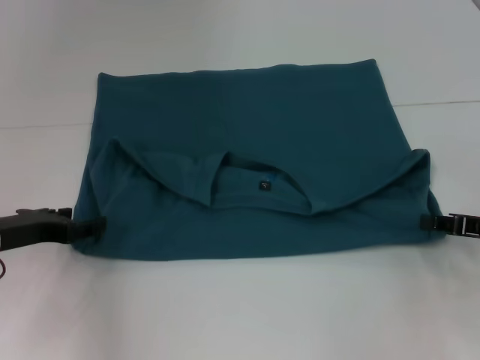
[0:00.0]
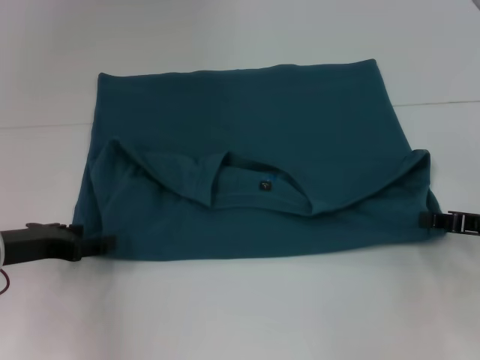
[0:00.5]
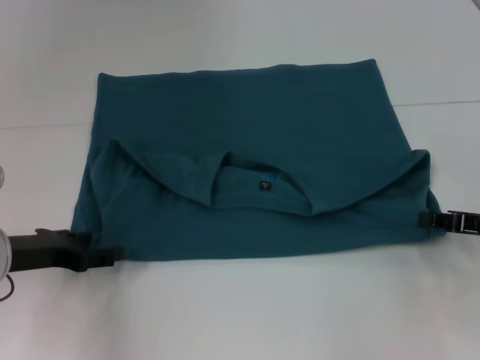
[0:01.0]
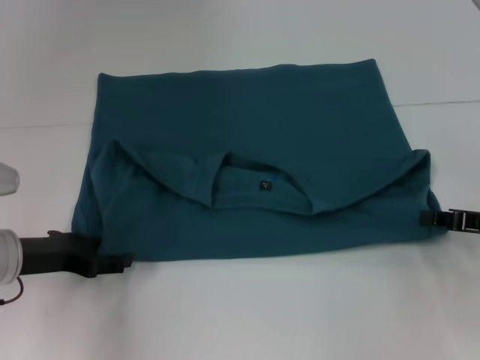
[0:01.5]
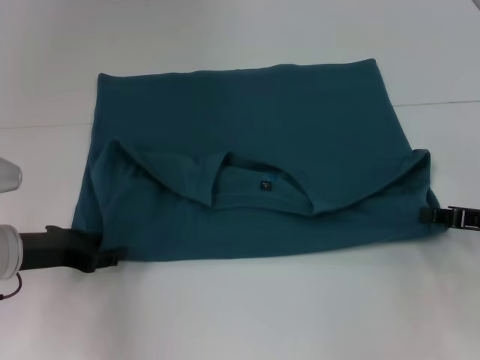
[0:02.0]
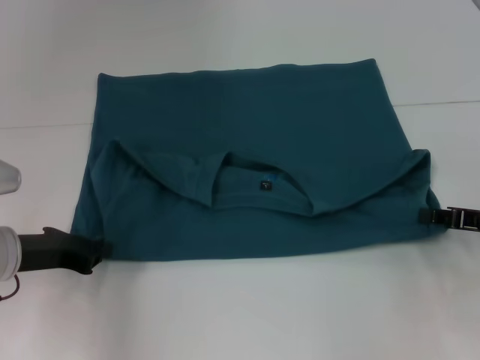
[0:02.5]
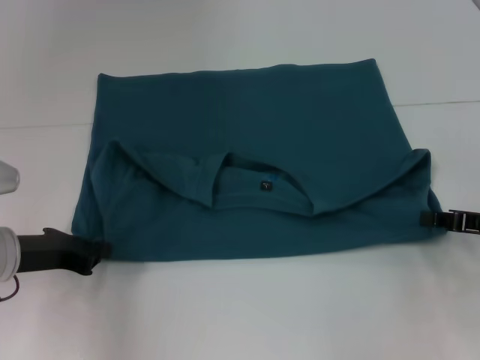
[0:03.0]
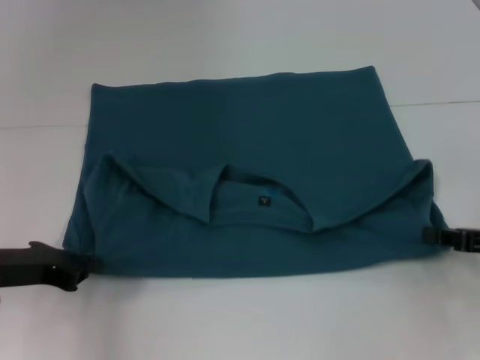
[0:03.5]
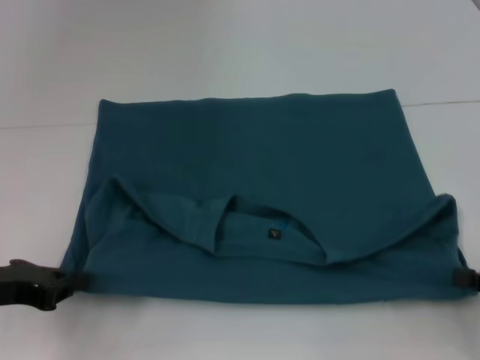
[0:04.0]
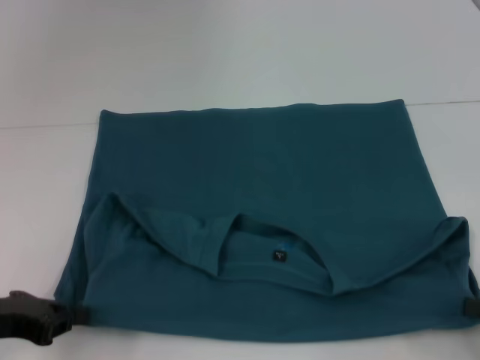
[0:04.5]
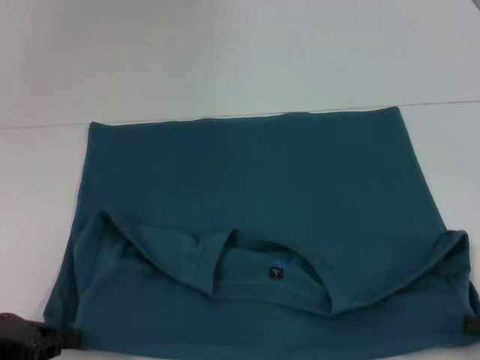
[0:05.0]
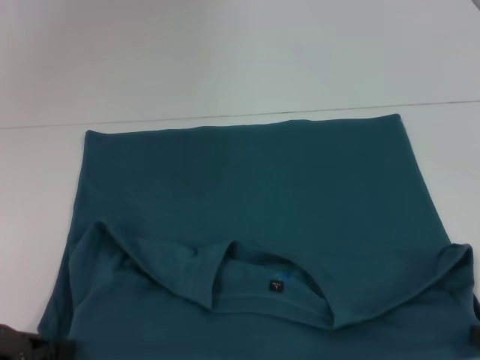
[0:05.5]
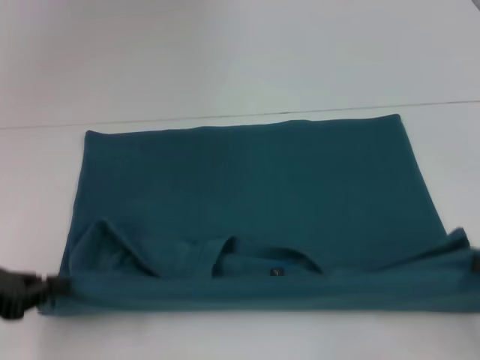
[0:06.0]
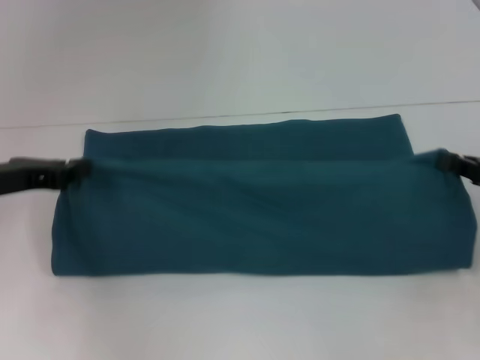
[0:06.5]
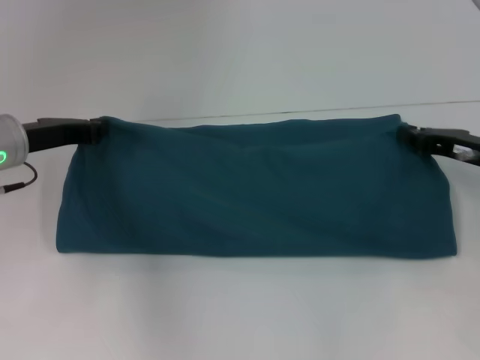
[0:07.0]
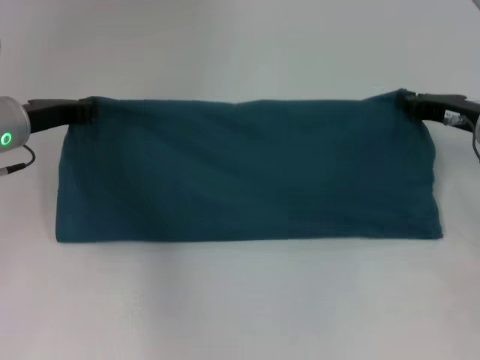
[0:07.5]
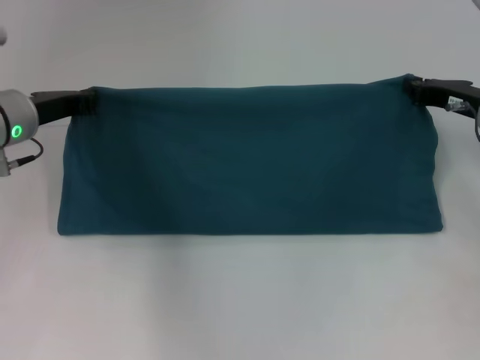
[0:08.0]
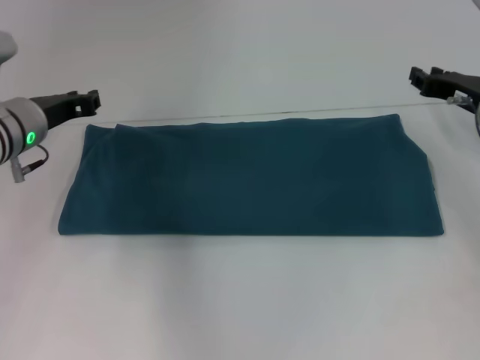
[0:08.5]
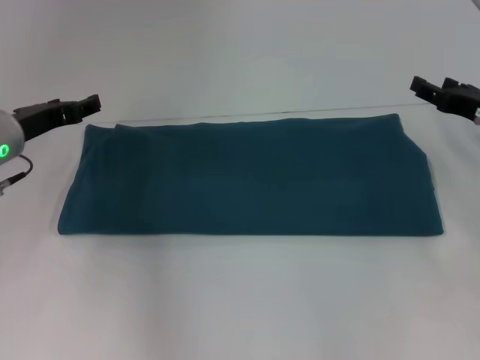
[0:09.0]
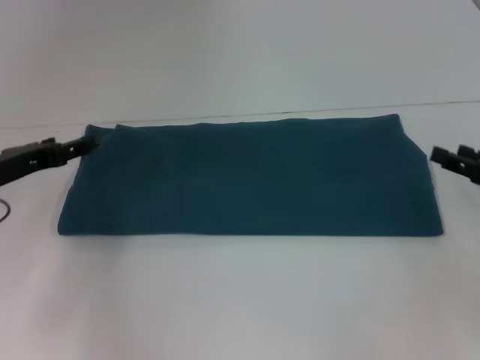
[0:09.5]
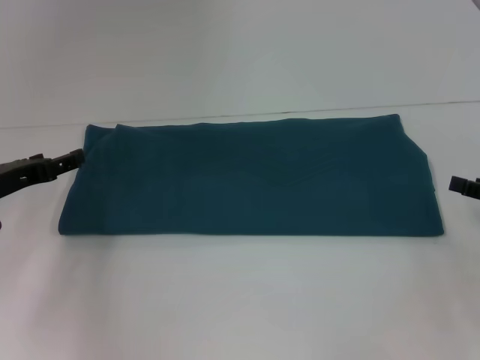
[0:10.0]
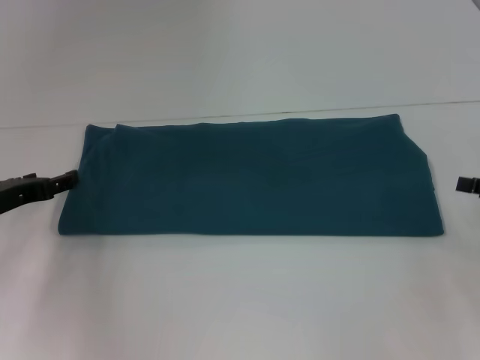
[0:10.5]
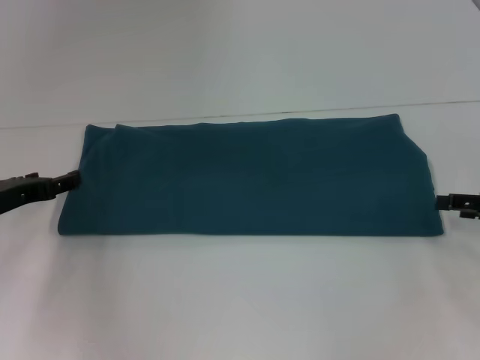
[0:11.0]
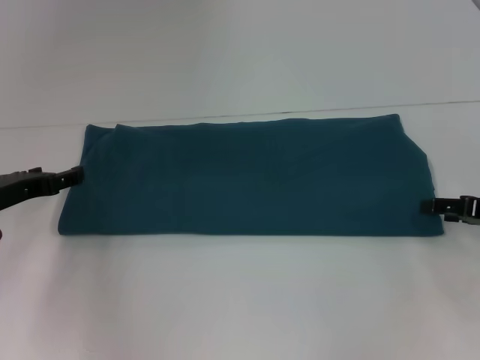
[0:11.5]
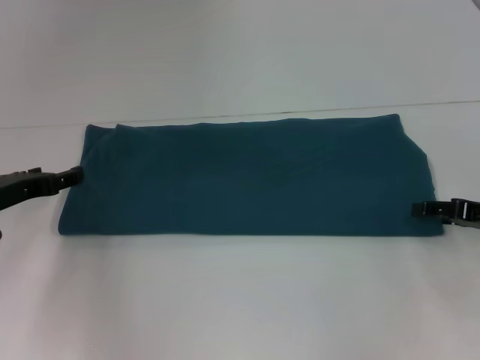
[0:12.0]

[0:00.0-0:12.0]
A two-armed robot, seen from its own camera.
Step, 0:01.0 to 0:08.5: Fold the clothes to the left.
Step, 0:01.0 to 0:08.5: Fold the clothes to the right.
0:00.0 to 0:02.0: The grippers make only small movements.
0:02.0 to 0:04.0: The left gripper changes place by approximately 5 cm, and closes its fingers. The right gripper moves backward, about 10 cm.
0:06.0 to 0:08.0: The right gripper heads forward, covering some 20 cm; the left gripper shifts about 20 cm forward and to the right.
0:08.0 to 0:10.0: The right gripper moves backward and to the right, some 15 cm, and opens; the left gripper travels backward and to the left by about 10 cm, and opens up.
0:10.0 to 0:12.0: The right gripper ends up about 5 cm from where it was.

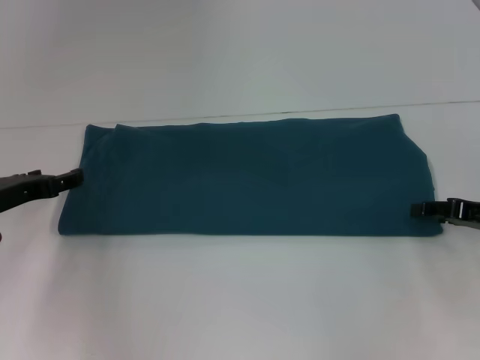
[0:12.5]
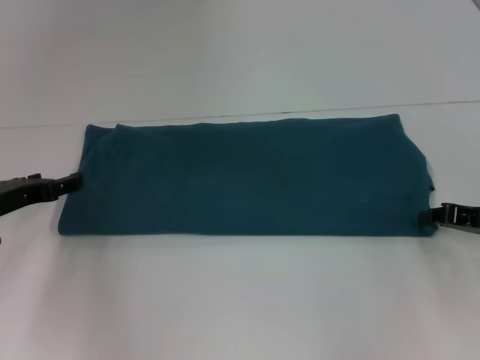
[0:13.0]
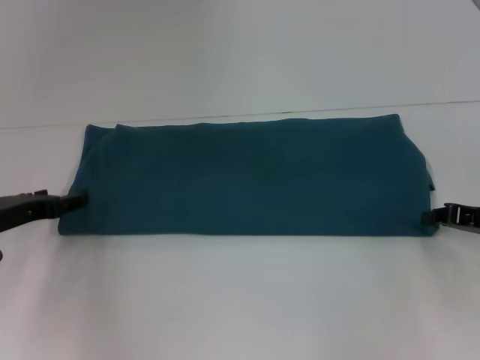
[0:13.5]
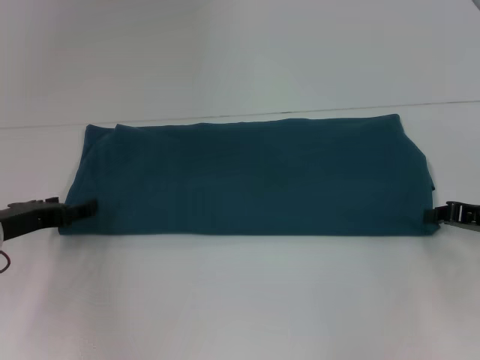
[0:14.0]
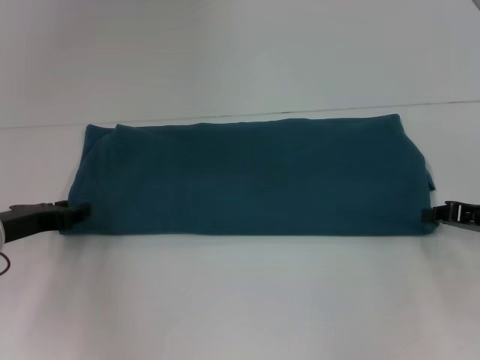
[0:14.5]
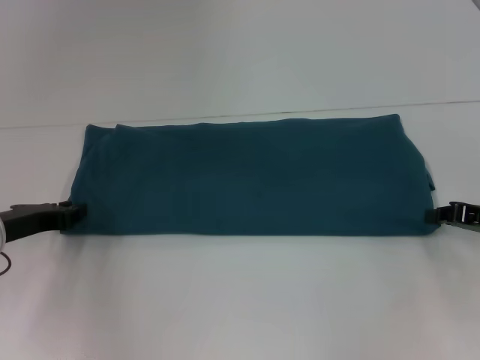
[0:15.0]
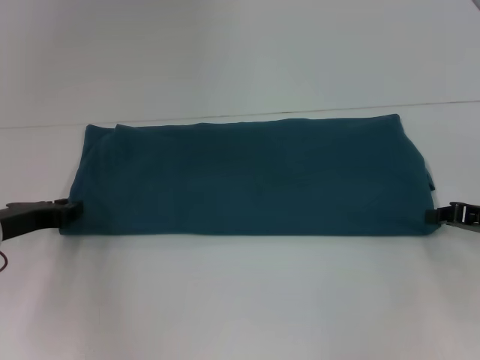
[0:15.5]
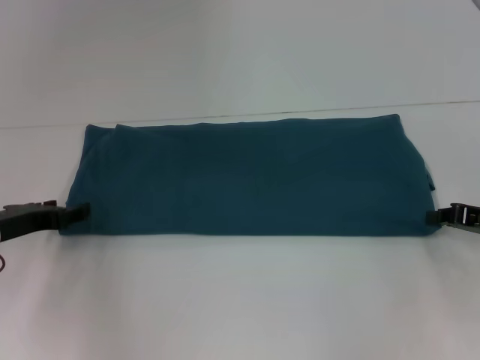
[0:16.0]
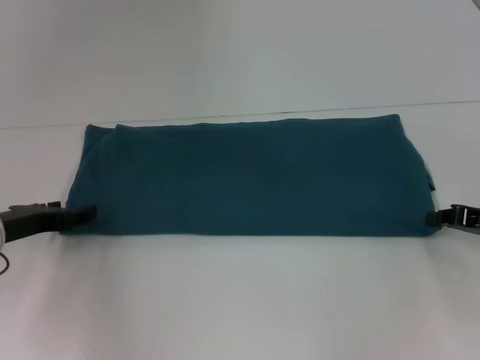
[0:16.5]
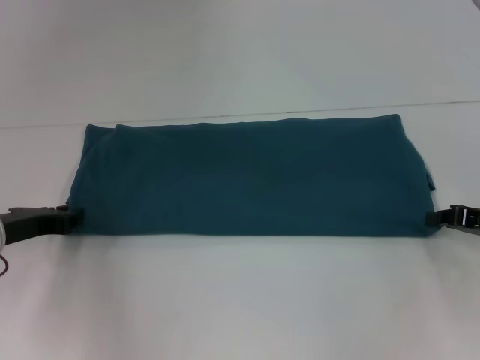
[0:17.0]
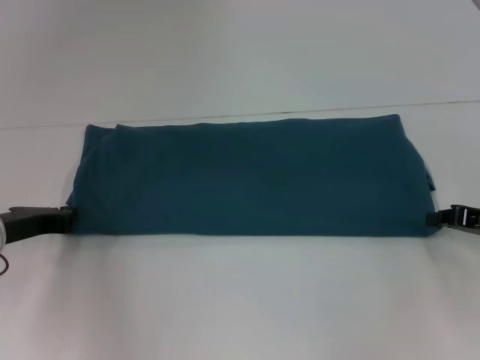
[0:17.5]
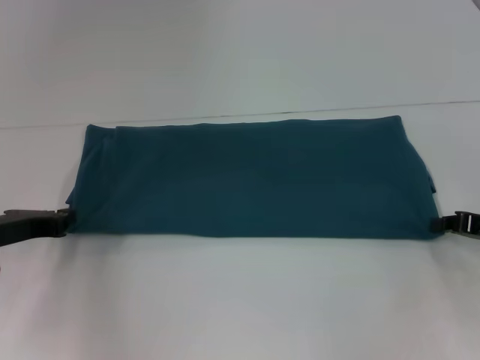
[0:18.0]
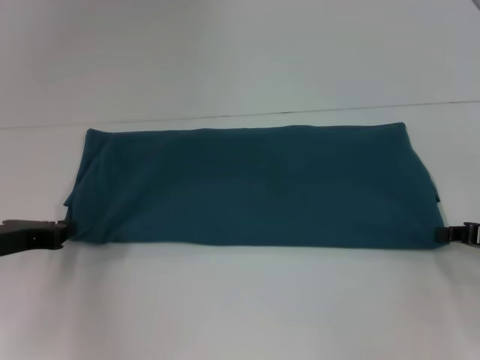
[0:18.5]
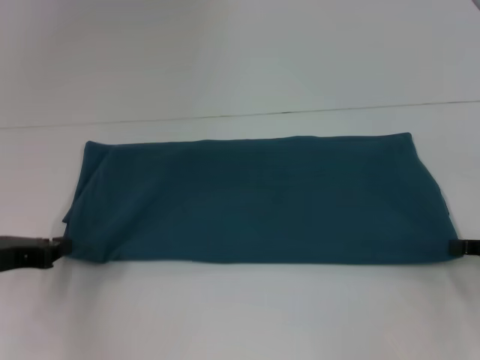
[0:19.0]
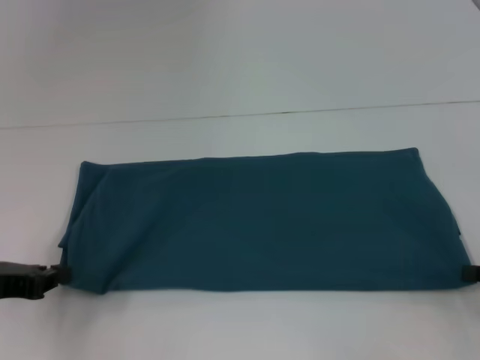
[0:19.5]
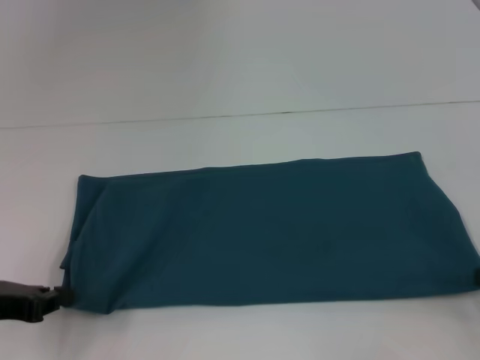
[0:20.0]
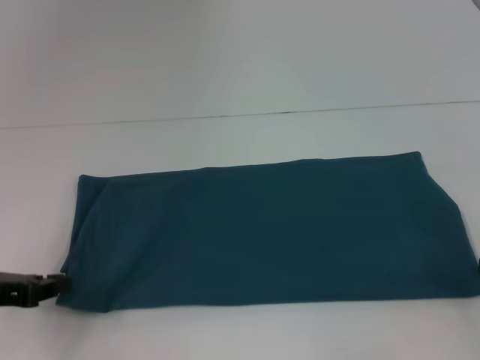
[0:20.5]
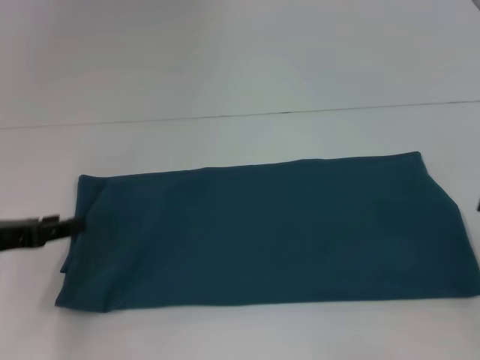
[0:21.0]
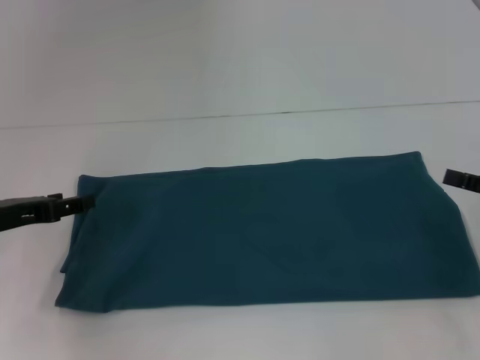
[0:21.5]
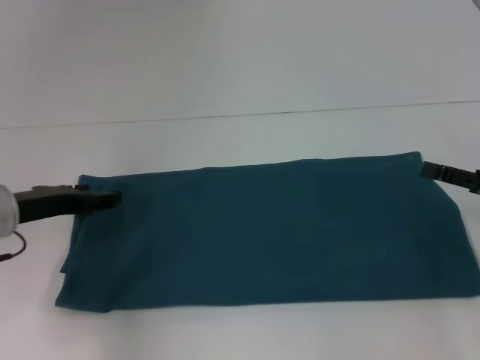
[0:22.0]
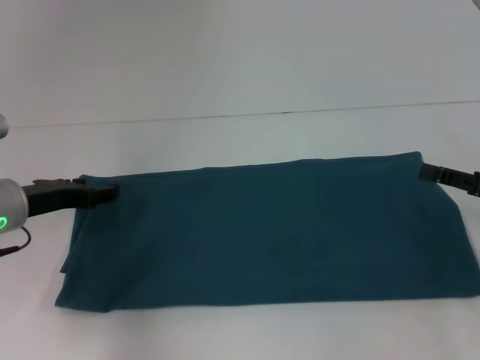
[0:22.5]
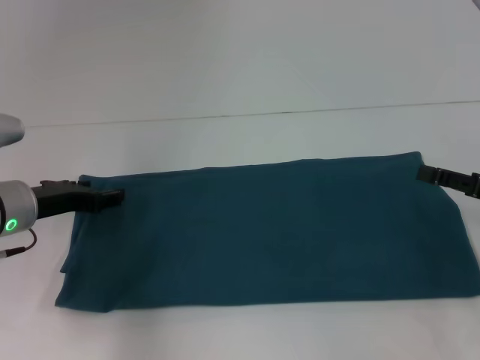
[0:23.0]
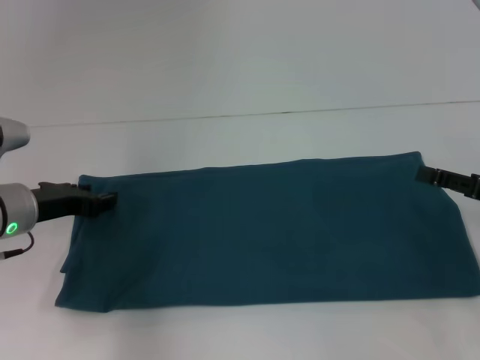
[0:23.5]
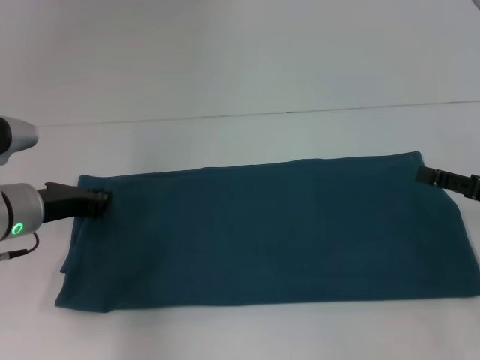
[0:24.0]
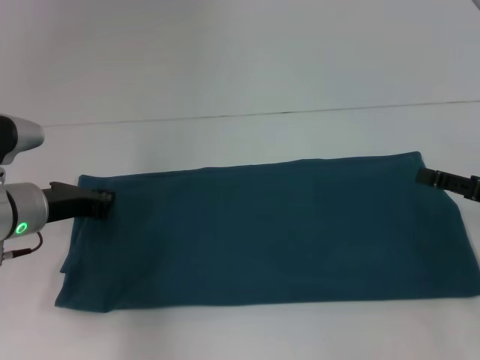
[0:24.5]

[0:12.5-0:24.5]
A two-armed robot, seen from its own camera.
0:16.5 to 0:18.5: The left gripper closes.
0:18.5 to 0:20.5: Both grippers travel together backward, roughly 5 cm.
0:20.5 to 0:22.5: The right gripper heads forward, covering some 5 cm, and opens up; the left gripper goes roughly 10 cm forward and to the right, and opens its fingers.
0:22.5 to 0:24.5: The left gripper closes up.

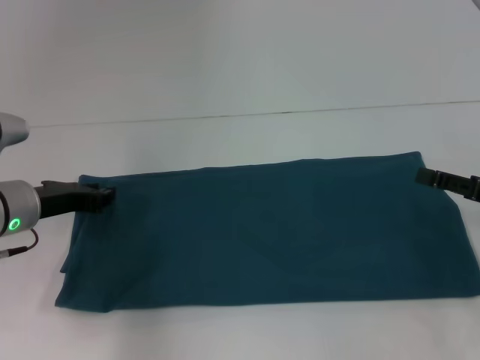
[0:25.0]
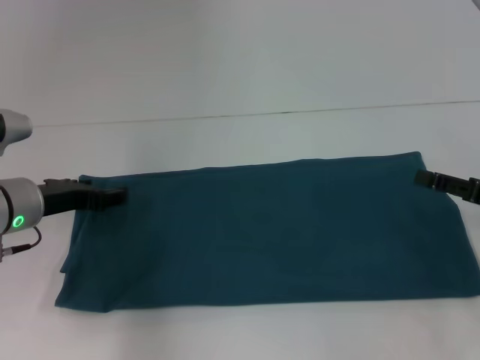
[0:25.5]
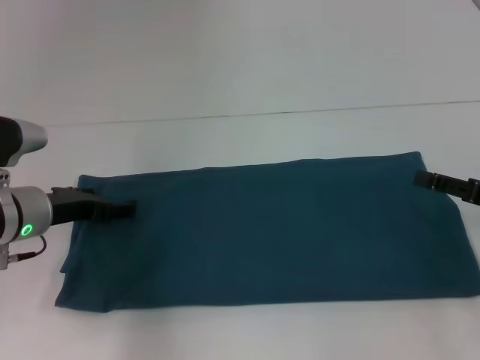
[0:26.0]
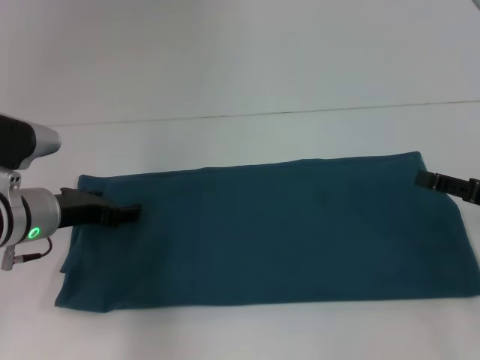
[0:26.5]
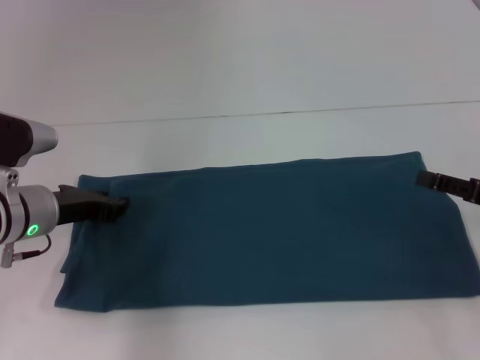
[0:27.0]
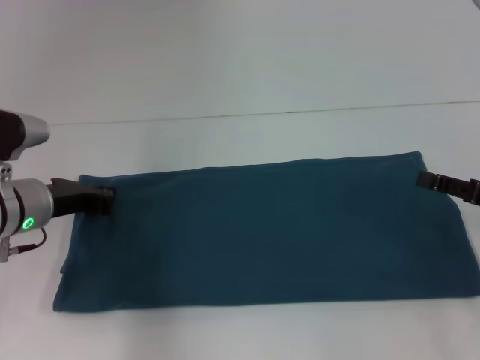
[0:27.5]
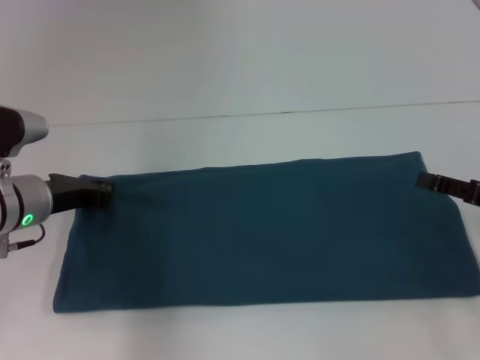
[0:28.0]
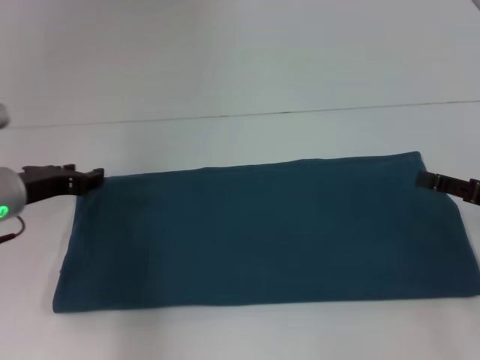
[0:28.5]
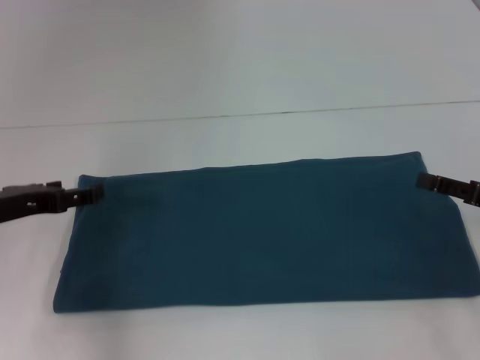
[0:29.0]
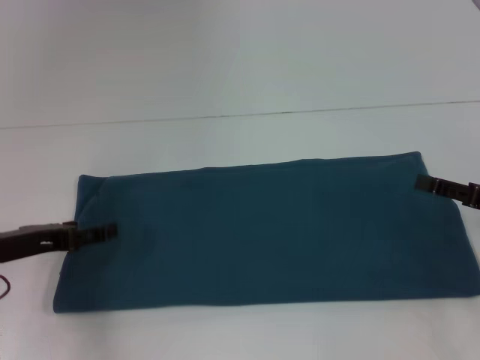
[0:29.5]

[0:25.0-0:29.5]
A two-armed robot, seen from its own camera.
0:25.0 to 0:27.0: The left gripper opens its fingers.
0:27.0 to 0:29.5: The left gripper travels backward and to the left by about 10 cm, and opens.
